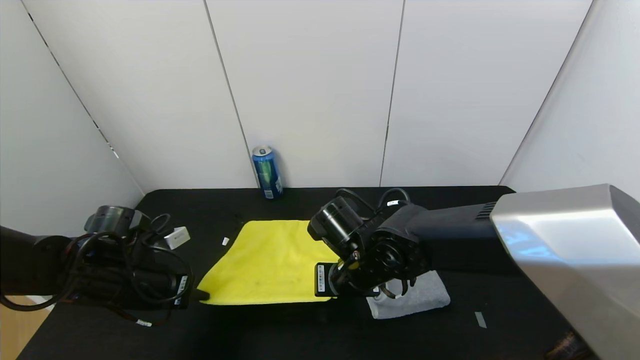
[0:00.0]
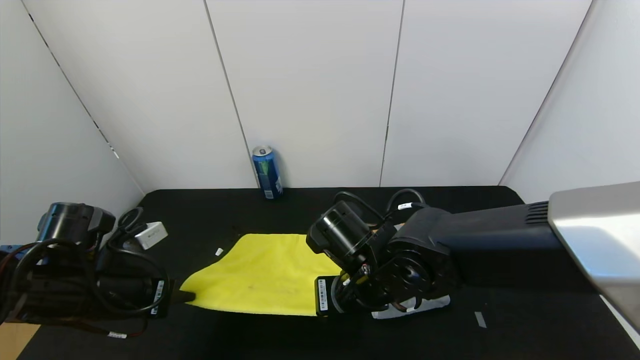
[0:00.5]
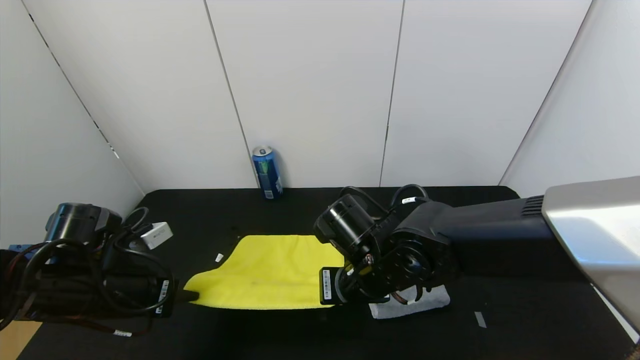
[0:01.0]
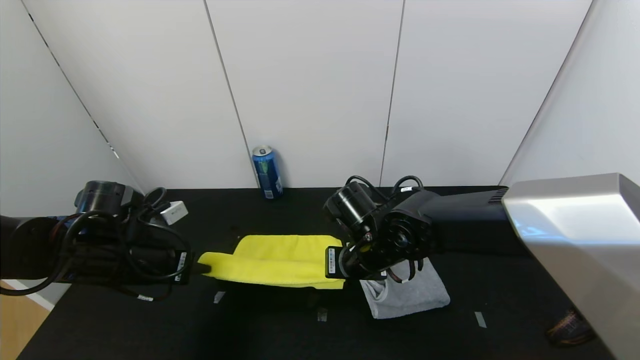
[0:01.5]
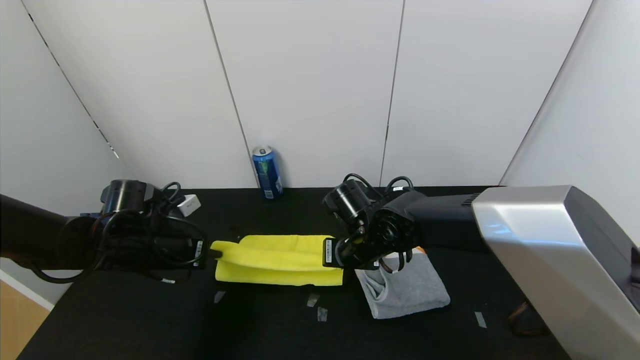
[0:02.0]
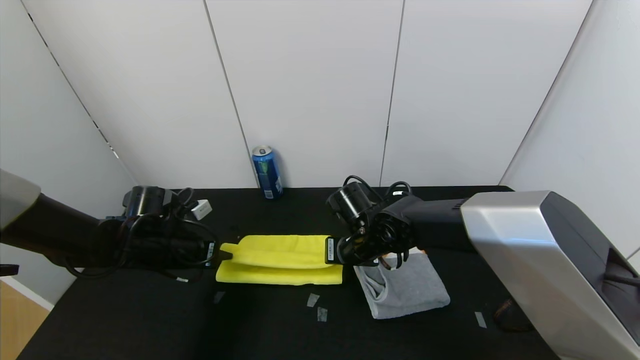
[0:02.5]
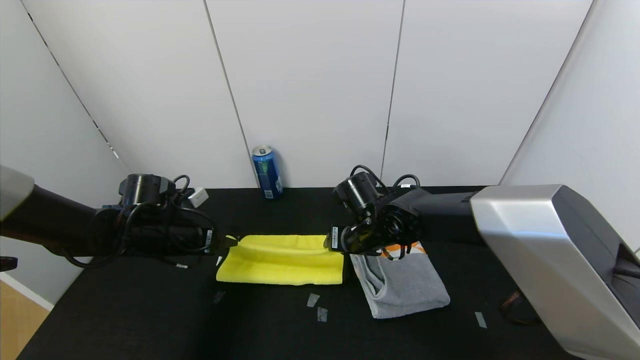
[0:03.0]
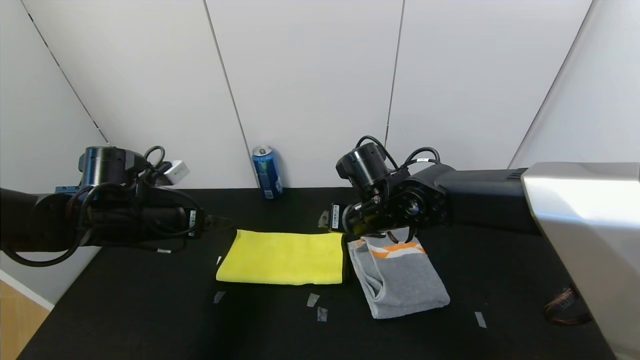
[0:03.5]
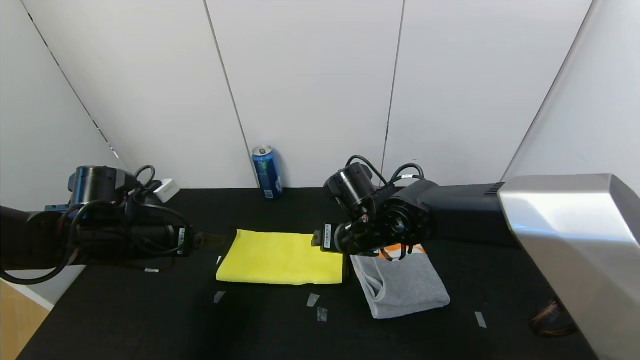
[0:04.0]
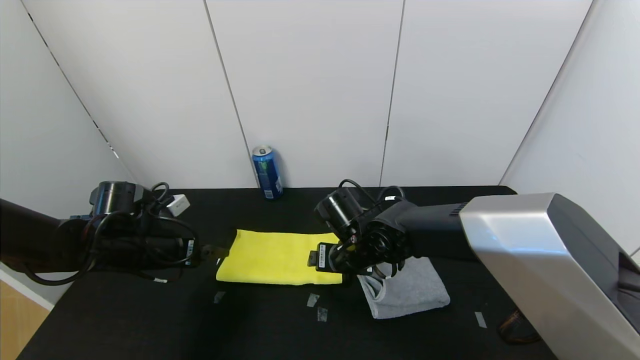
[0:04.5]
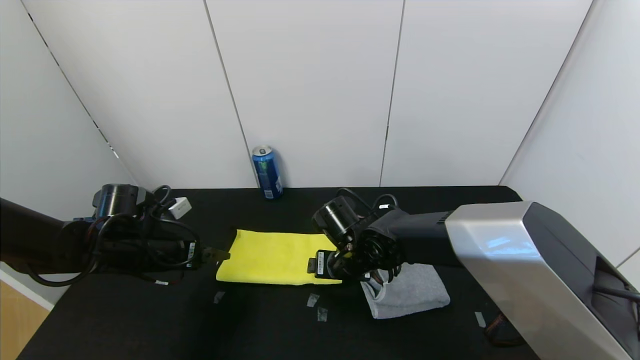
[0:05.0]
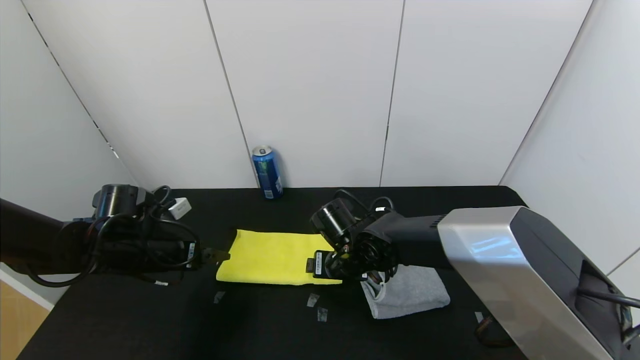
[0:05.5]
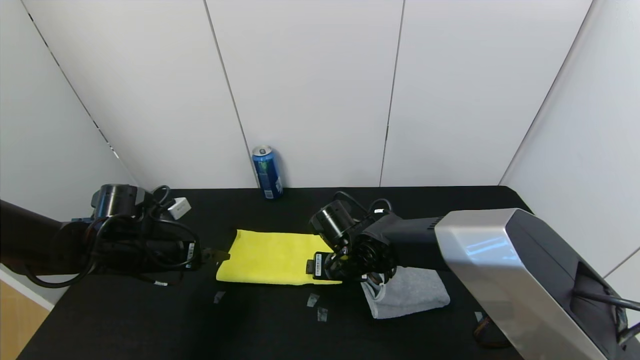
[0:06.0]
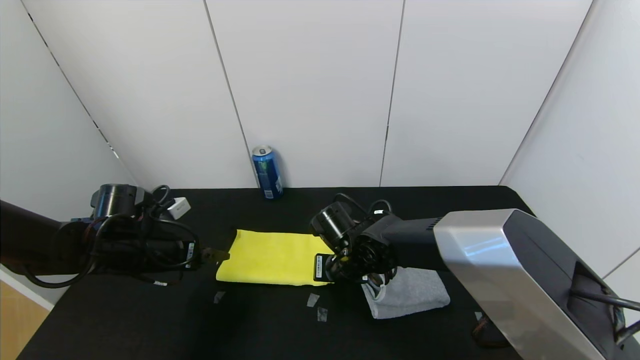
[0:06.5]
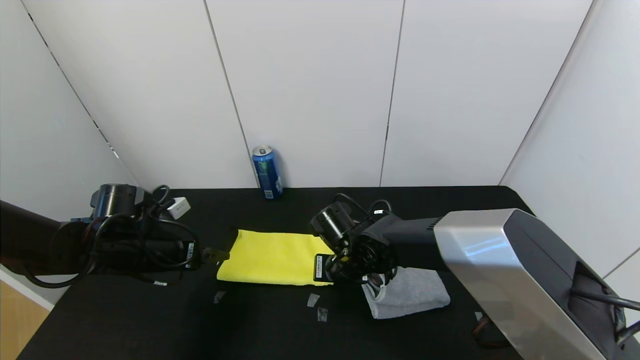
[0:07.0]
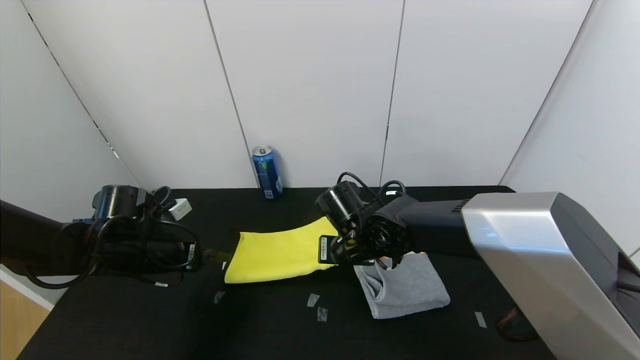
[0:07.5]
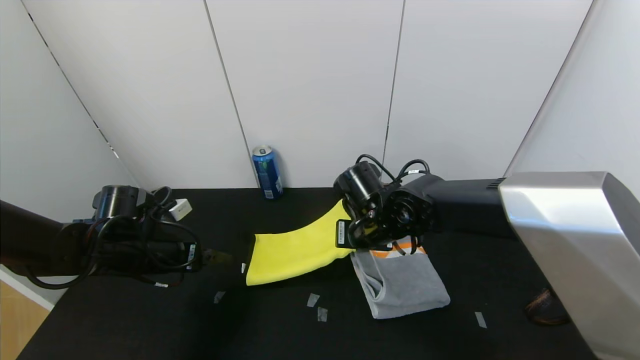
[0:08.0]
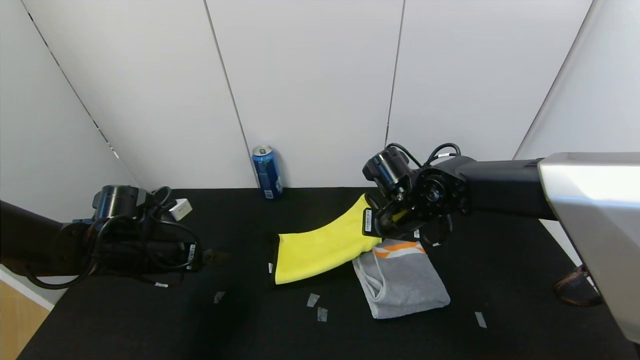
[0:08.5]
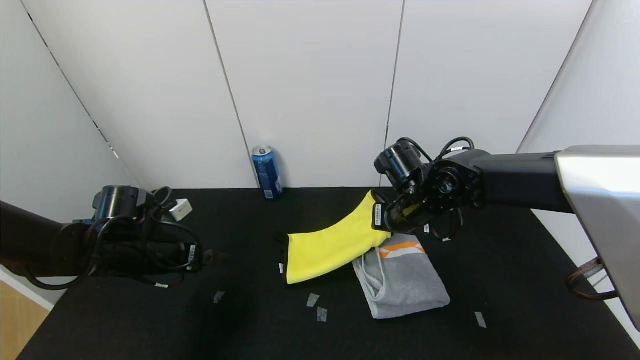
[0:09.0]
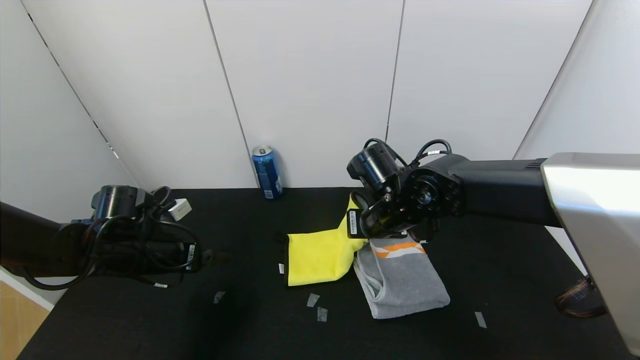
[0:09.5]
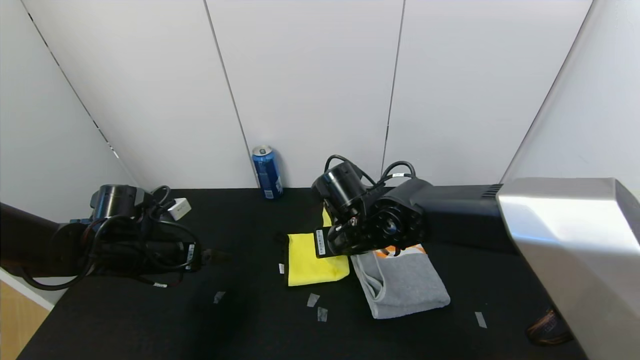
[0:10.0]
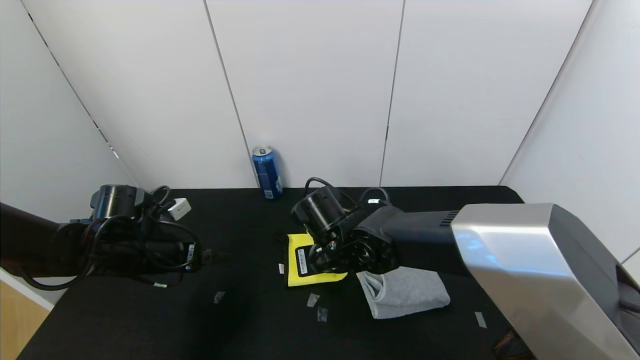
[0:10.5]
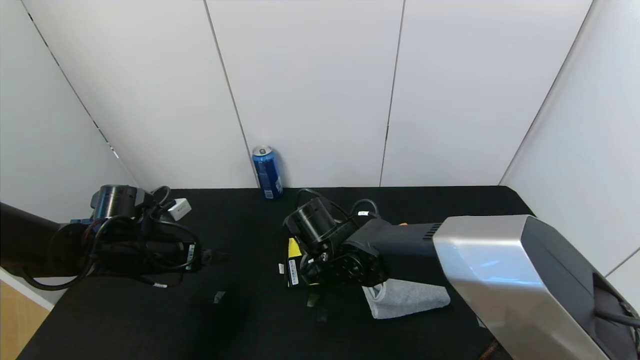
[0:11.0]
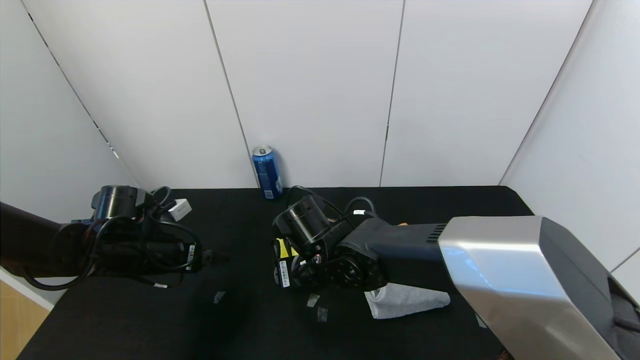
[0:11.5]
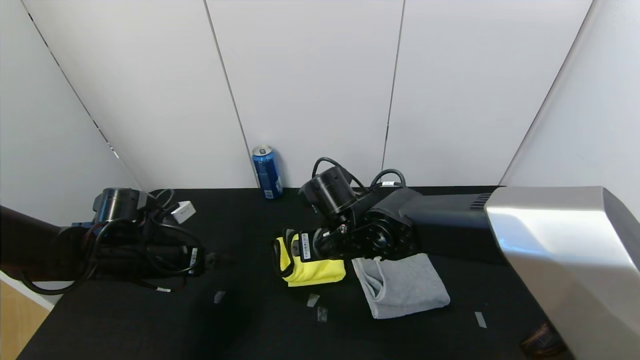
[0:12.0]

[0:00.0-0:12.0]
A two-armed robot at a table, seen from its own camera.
Task of the whole recording: Use the gripper to fold the yellow towel and grey towel in half twice,then put the yellow towel on the grey towel.
Step, 0:00.0 to 0:03.0: Fold the yellow towel upwards with the left gripper.
Step, 0:00.0 to 0:03.0: Fold the yellow towel upwards with the right gripper.
Step, 0:03.5 to 0:11.0: Fold the yellow towel from right to left with right gripper.
0:00.0 to 0:02.0: The grippers both shift forward by about 5 cm.
0:02.0 to 0:04.0: The right gripper opens its fingers; the left gripper opens its fingers.
0:04.0 to 0:06.0: The right gripper is displaced downward by roughly 5 cm.
0:06.0 to 0:08.0: The right gripper heads upward, covering about 5 cm, and closes up.
0:08.0 to 0:10.0: The right gripper moves roughly 5 cm to the right and comes back.
0:10.0 to 0:12.0: The right gripper opens.

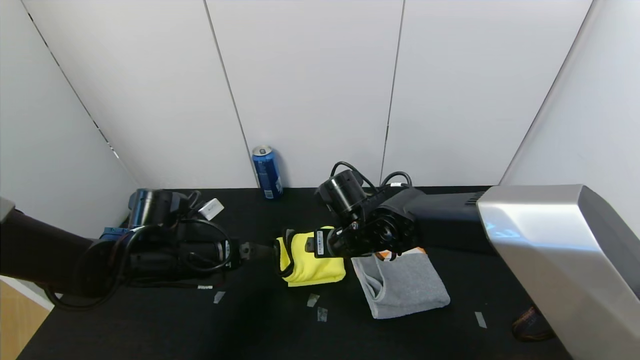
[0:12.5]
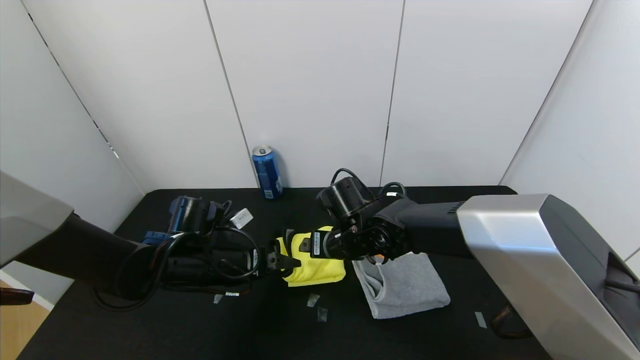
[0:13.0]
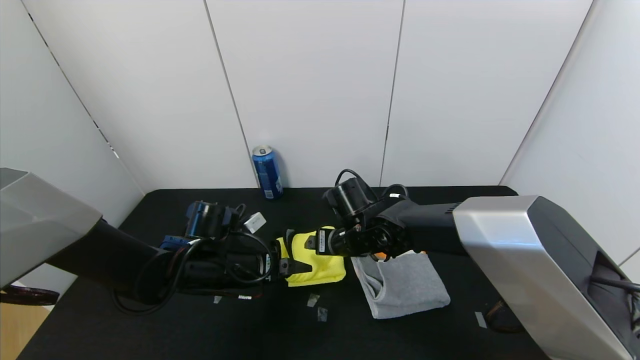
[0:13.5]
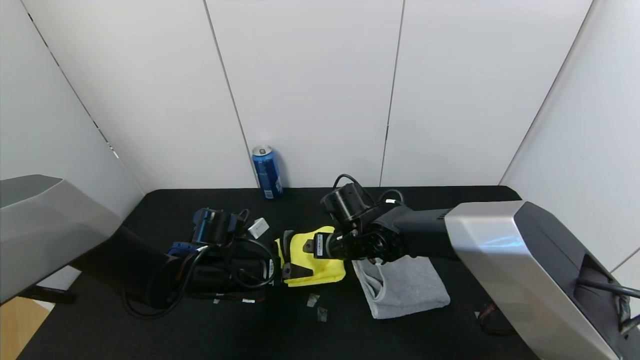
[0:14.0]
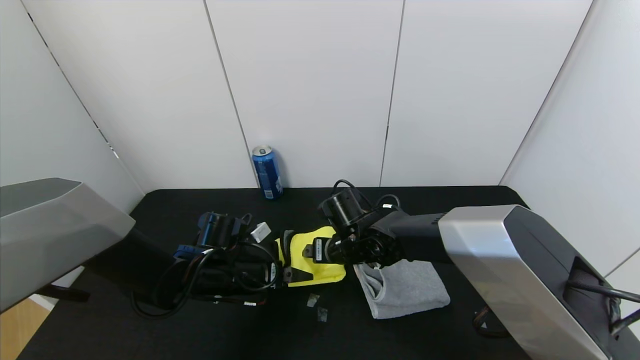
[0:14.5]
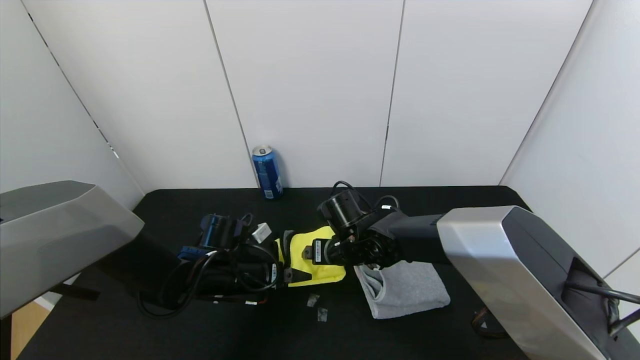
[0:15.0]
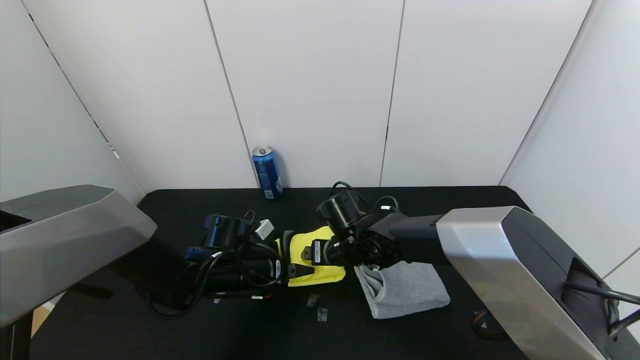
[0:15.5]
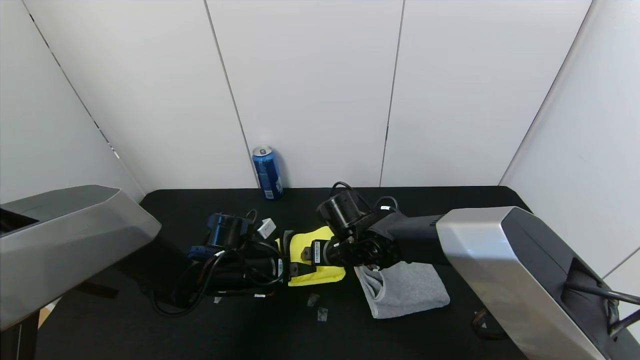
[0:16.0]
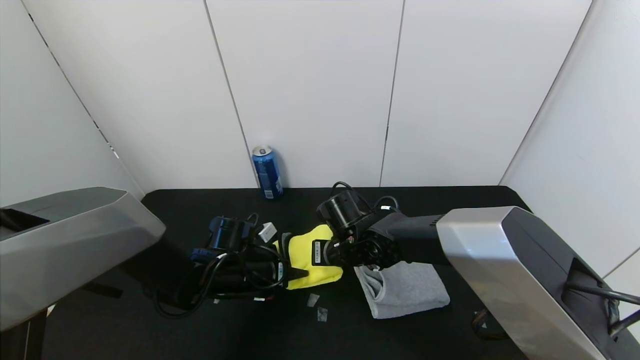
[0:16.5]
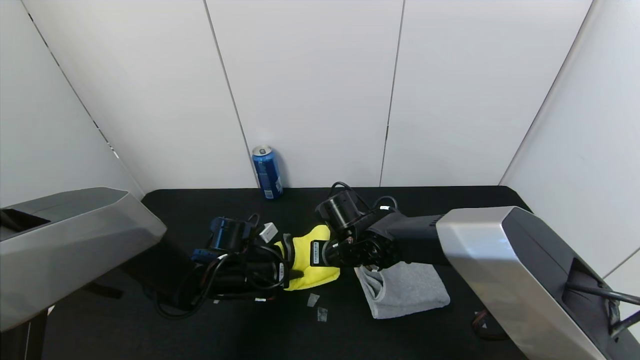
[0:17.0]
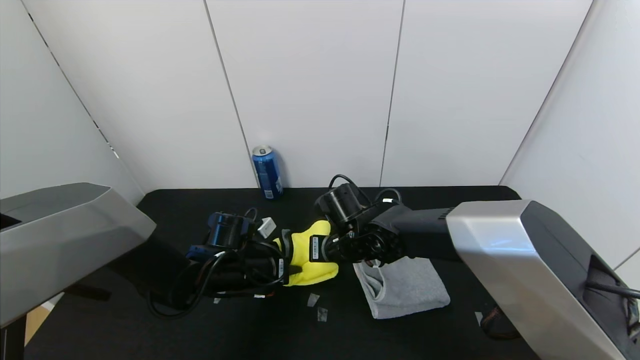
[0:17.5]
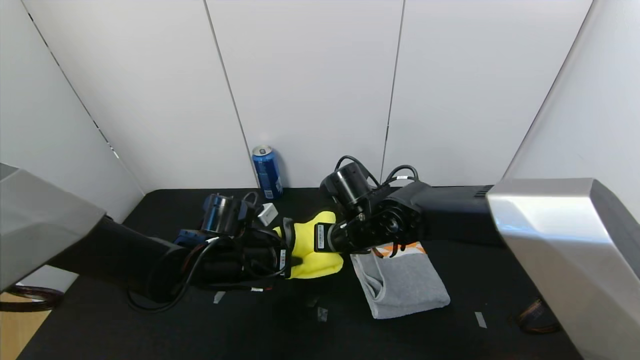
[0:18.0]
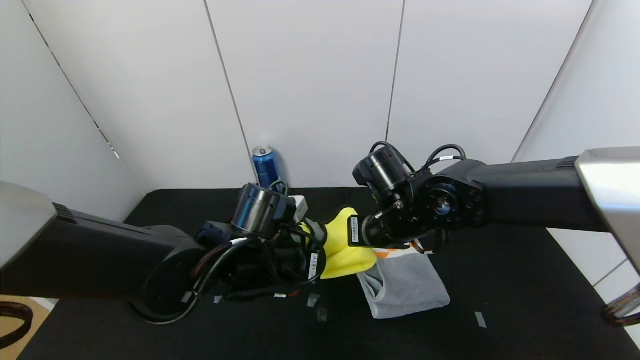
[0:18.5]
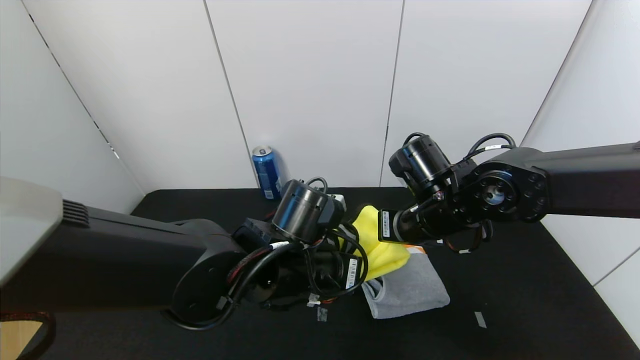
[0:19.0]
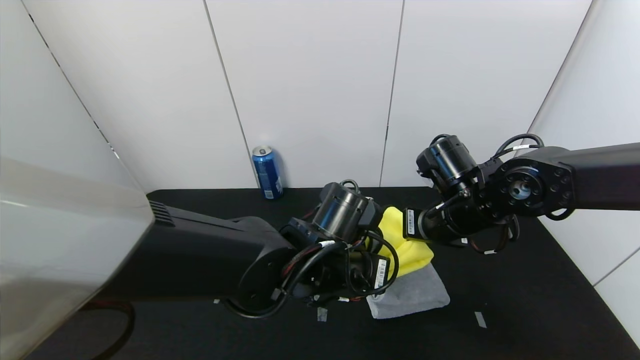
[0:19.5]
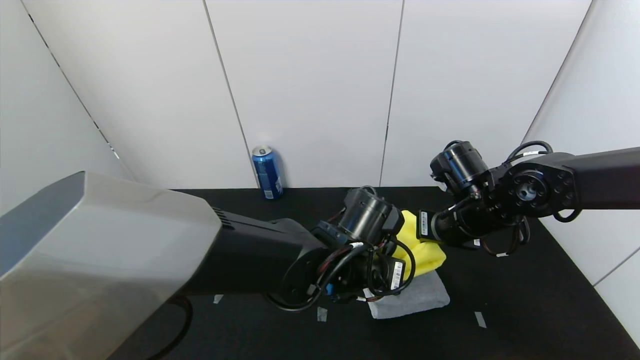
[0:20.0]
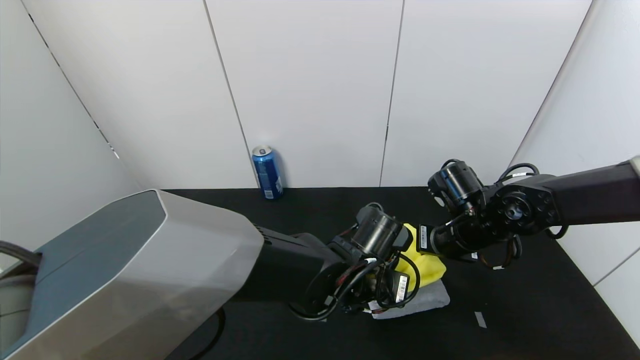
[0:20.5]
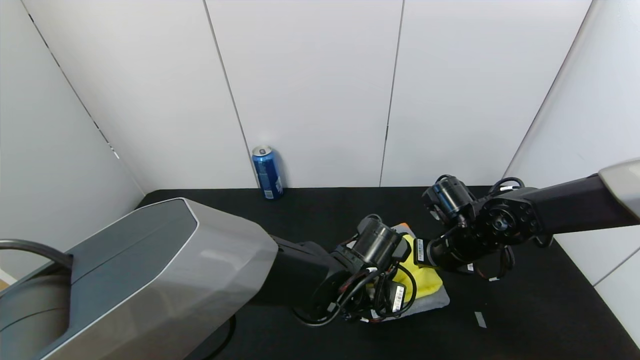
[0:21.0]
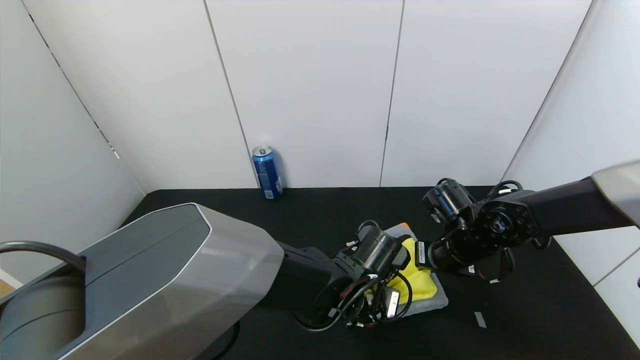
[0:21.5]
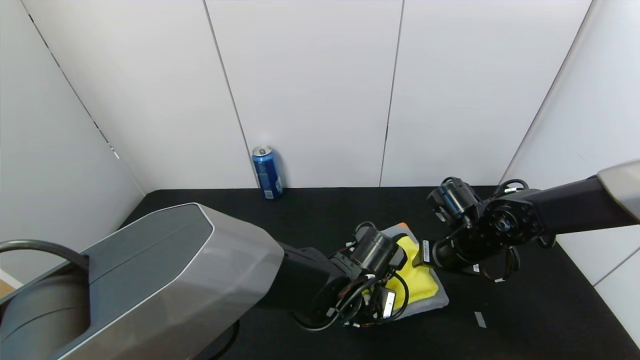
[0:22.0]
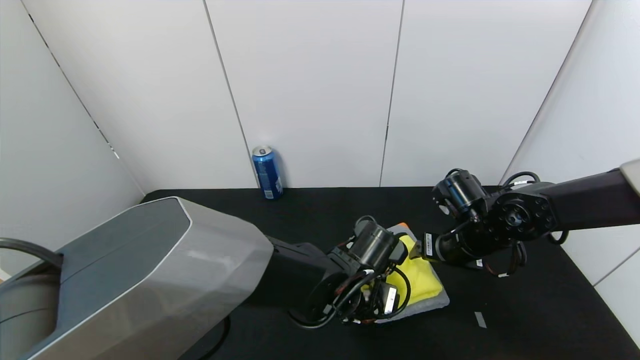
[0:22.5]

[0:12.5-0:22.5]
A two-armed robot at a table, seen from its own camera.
Task of the whole recording: Use the gripper to fold the yellow towel and grey towel in half twice,then put the yellow towel on the grey towel.
0:12.5 to 0:14.5: The right gripper shifts about 5 cm downward. The left gripper is displaced downward and to the right by approximately 10 cm.
0:14.5 to 0:16.5: The left gripper closes its fingers, while the right gripper closes its fingers.
0:16.5 to 0:18.5: The right gripper travels upward and to the right by some 10 cm, and closes up; the left gripper shifts approximately 15 cm upward, to the right and backward, and closes.
0:18.5 to 0:20.5: The grippers both shift to the right by about 15 cm.
0:20.5 to 0:22.5: The right gripper opens up. The left gripper opens up.
